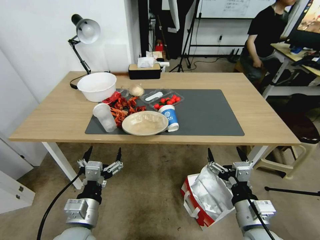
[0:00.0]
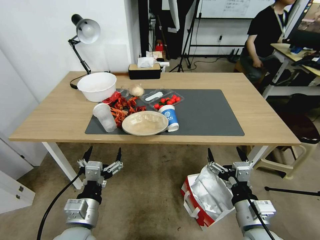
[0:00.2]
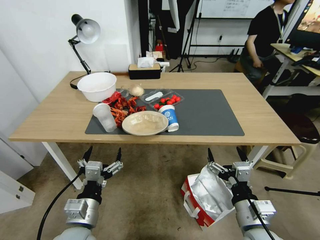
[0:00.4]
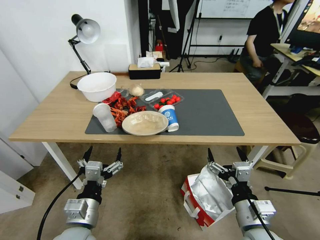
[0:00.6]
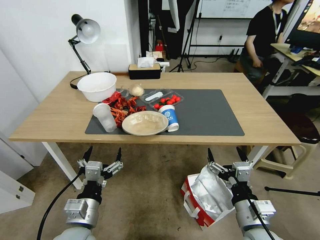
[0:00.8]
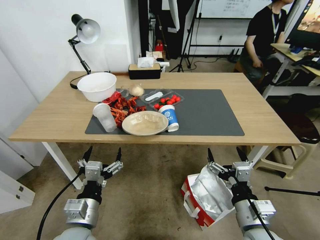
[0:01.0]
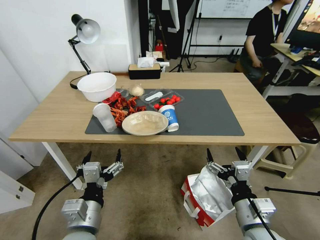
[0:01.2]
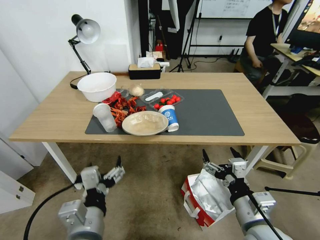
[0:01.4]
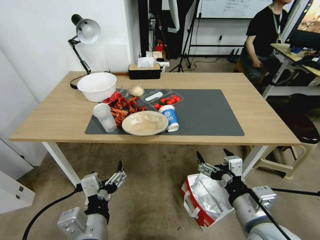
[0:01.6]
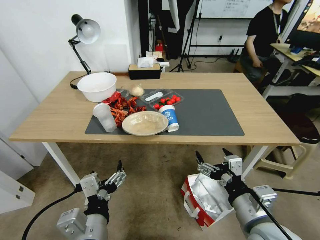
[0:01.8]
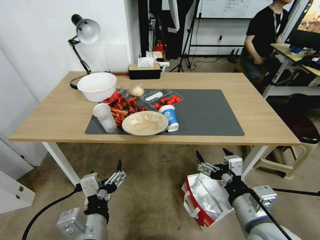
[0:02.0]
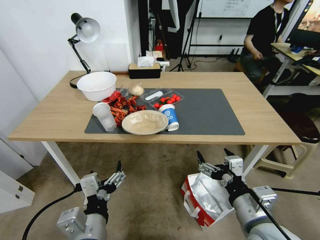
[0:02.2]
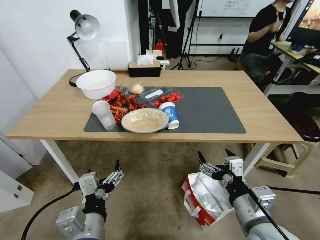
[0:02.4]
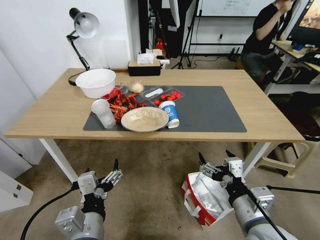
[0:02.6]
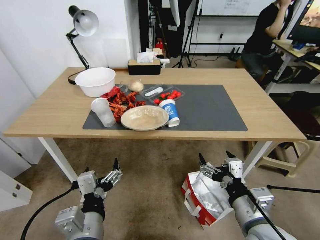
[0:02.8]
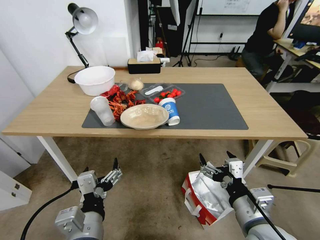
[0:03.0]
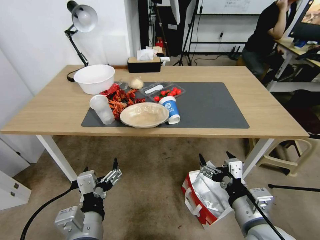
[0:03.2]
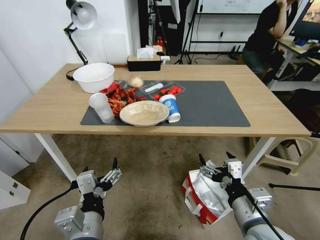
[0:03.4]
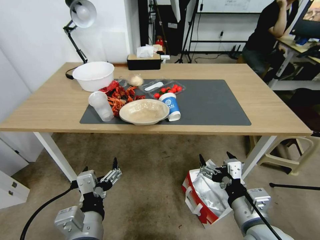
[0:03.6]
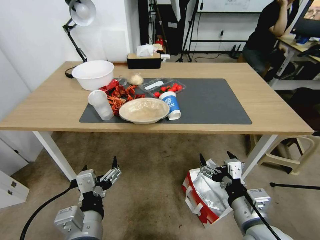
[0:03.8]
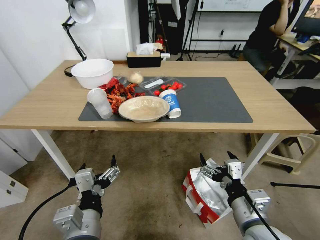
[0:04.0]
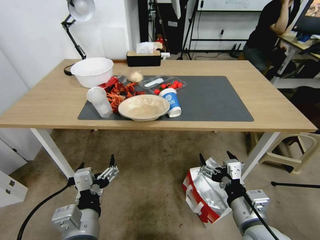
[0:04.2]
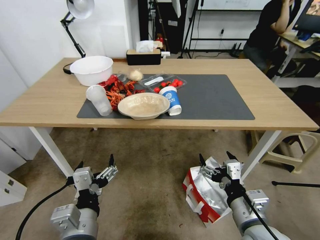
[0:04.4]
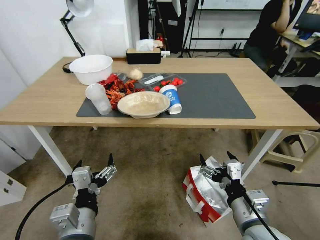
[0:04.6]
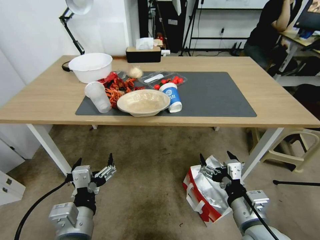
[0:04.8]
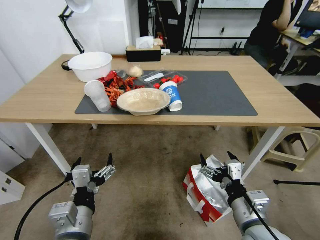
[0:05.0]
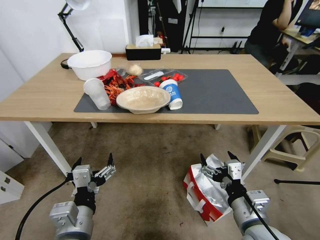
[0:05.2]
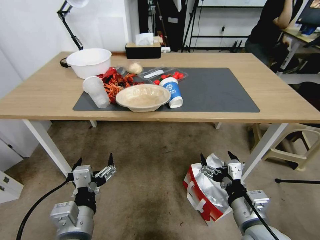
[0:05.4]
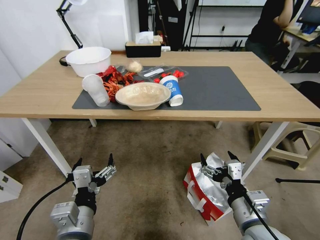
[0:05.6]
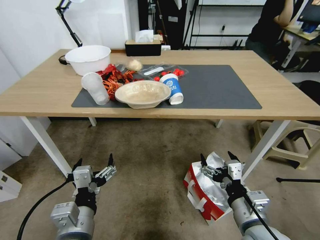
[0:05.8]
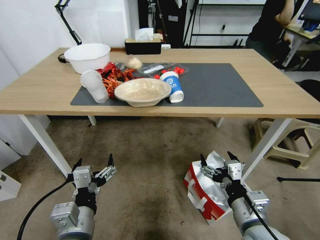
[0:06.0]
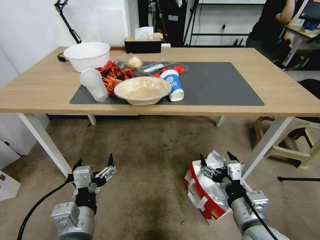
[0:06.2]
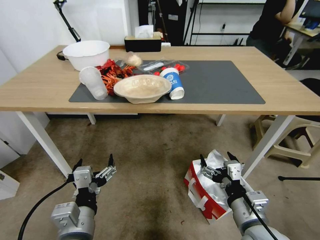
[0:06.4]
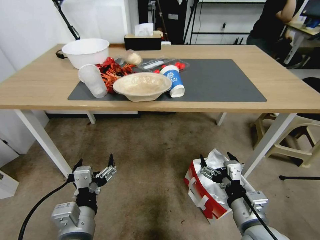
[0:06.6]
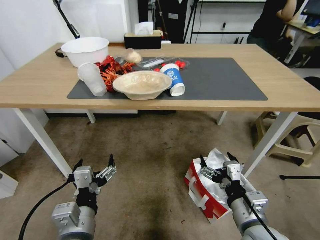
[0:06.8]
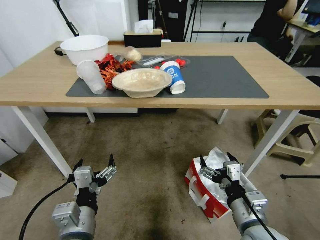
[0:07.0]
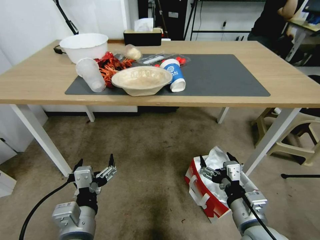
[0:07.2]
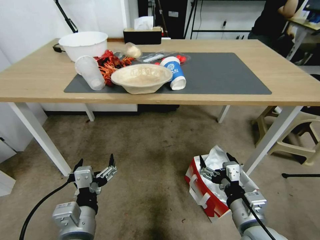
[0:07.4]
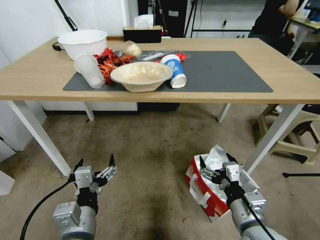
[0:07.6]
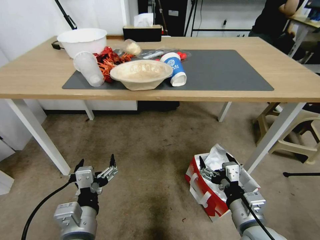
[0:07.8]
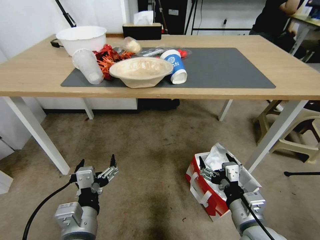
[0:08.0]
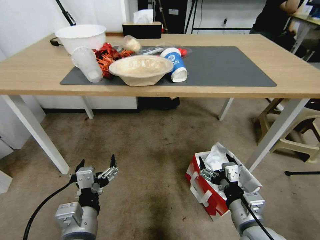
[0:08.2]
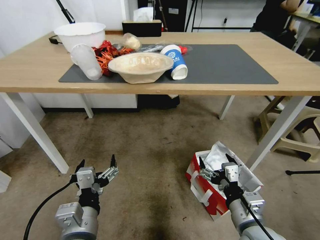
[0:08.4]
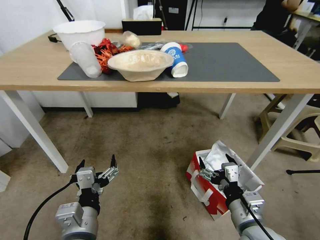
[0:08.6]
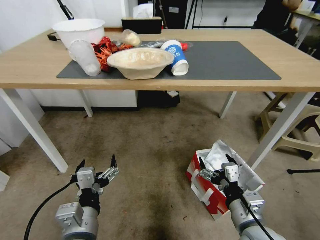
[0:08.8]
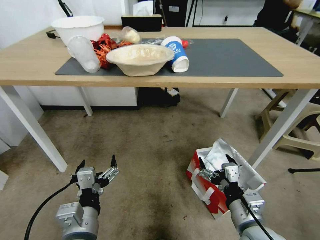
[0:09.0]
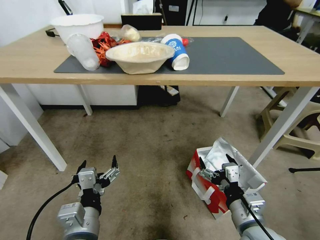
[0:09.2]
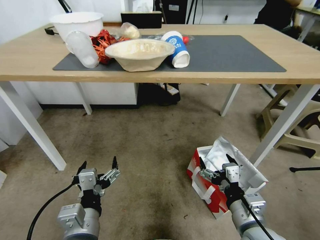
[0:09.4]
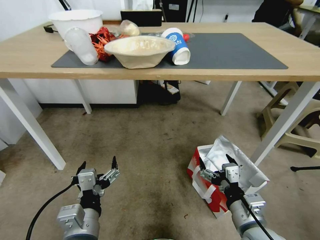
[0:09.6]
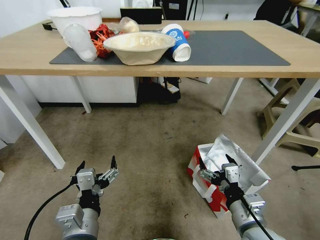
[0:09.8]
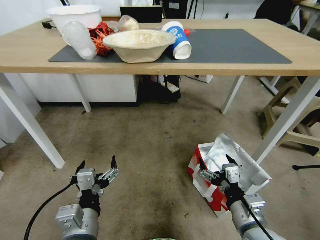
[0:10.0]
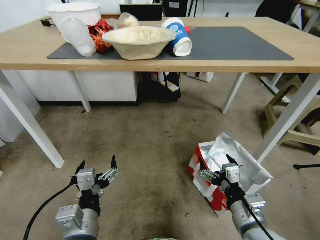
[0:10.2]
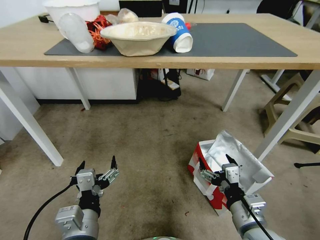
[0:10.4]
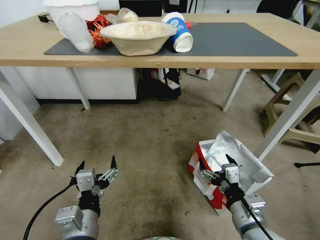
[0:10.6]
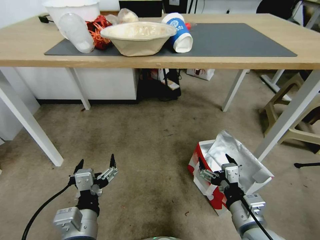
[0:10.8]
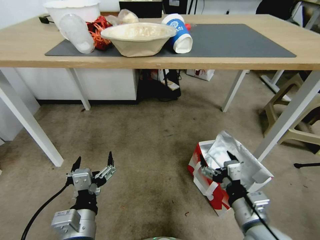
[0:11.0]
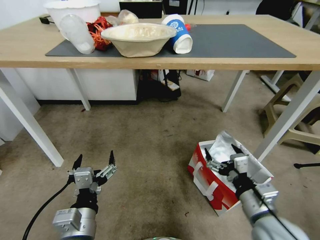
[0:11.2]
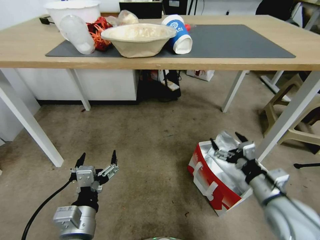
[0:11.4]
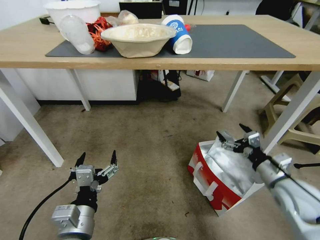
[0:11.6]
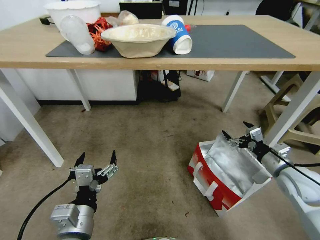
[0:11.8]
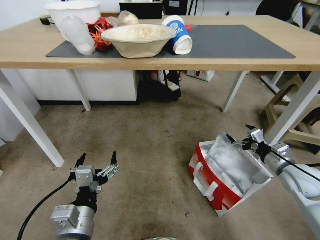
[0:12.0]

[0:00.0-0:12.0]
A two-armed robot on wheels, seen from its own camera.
Task of the whole recording: Pick up the food delivery bag from the floor and place it on the table.
0:10.4 to 0:12.0: The right gripper travels to the right and forward by approximately 25 cm.

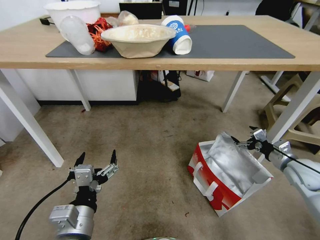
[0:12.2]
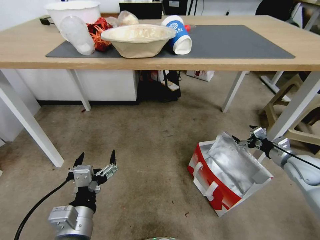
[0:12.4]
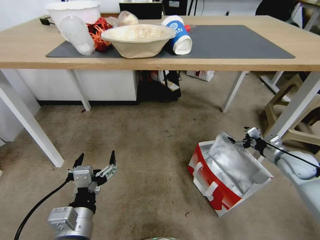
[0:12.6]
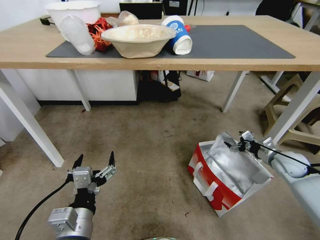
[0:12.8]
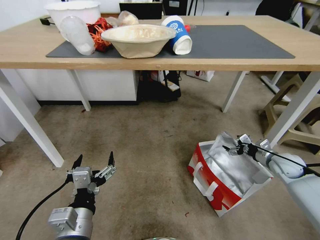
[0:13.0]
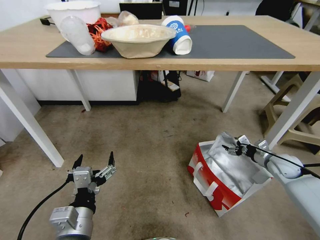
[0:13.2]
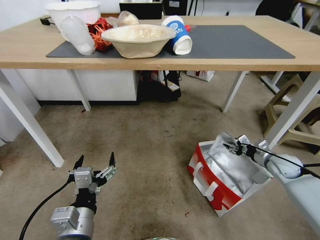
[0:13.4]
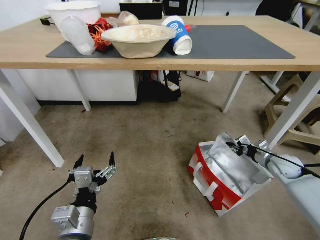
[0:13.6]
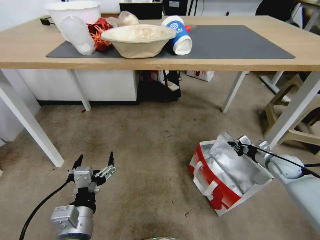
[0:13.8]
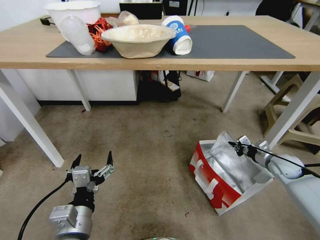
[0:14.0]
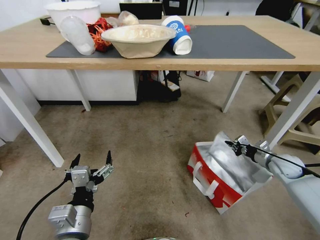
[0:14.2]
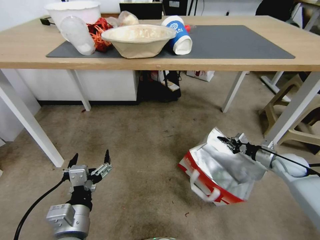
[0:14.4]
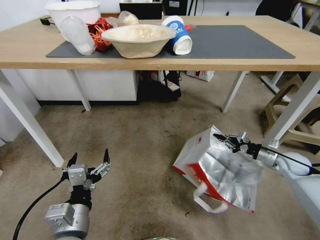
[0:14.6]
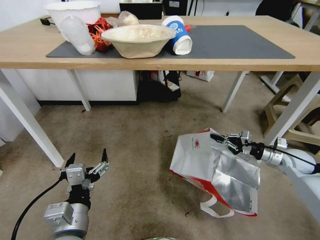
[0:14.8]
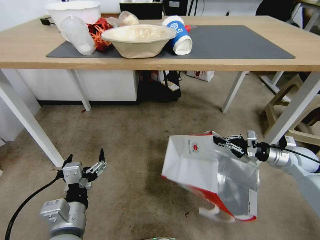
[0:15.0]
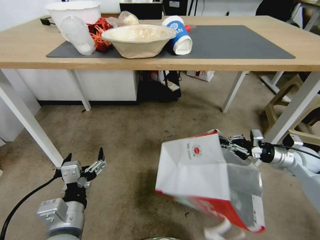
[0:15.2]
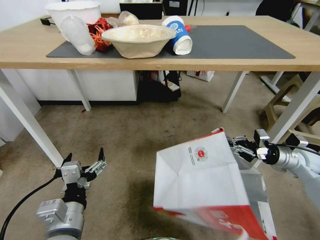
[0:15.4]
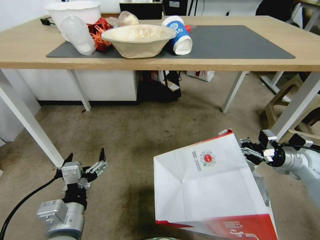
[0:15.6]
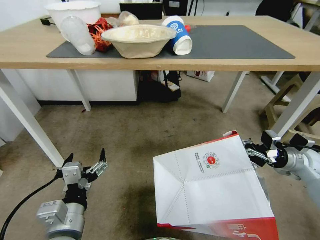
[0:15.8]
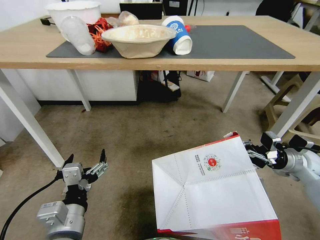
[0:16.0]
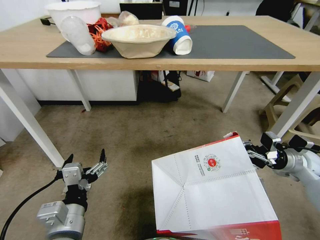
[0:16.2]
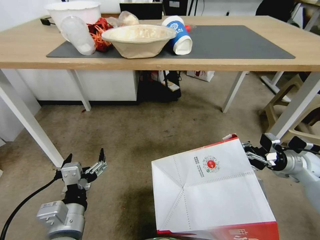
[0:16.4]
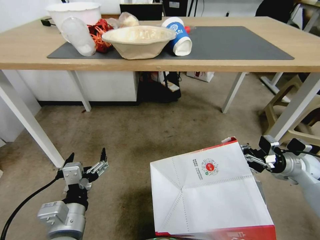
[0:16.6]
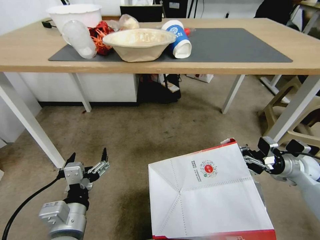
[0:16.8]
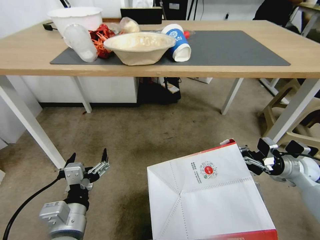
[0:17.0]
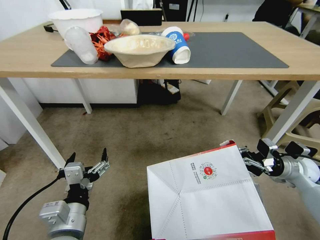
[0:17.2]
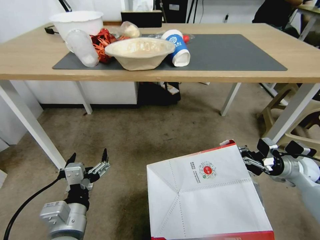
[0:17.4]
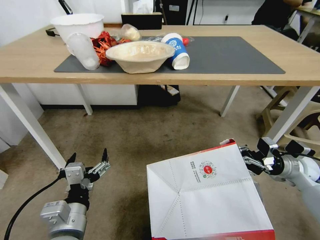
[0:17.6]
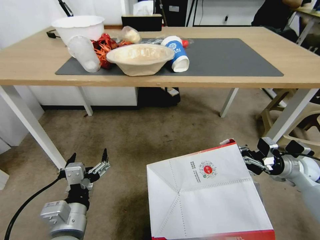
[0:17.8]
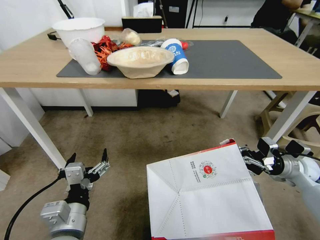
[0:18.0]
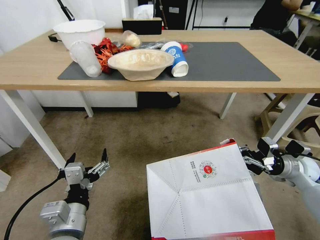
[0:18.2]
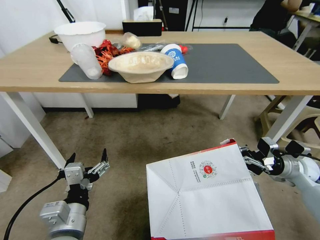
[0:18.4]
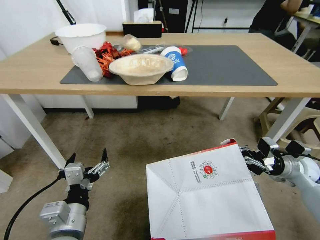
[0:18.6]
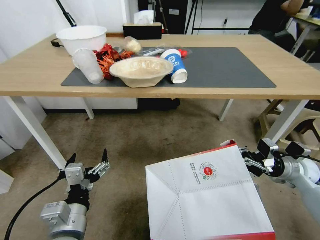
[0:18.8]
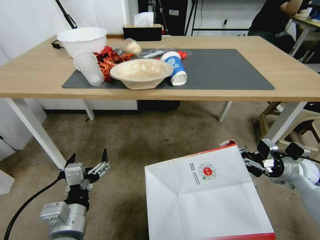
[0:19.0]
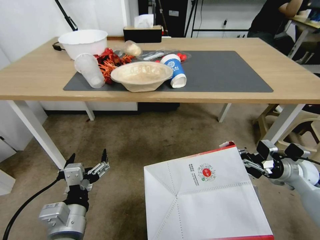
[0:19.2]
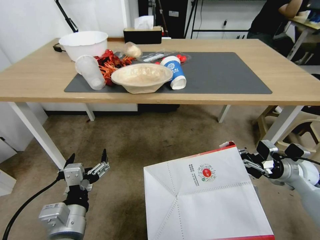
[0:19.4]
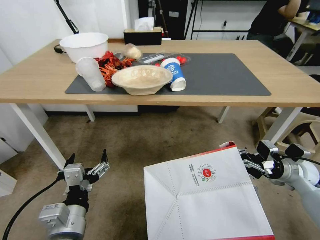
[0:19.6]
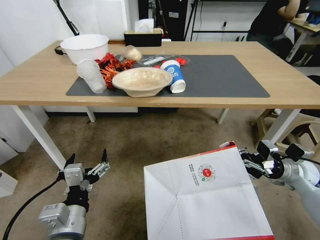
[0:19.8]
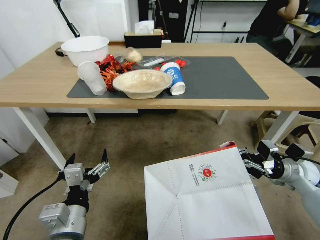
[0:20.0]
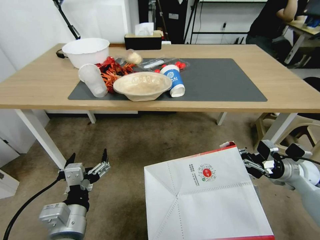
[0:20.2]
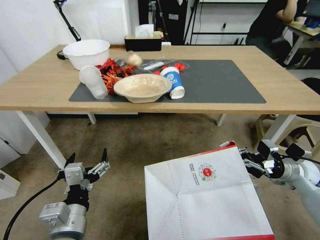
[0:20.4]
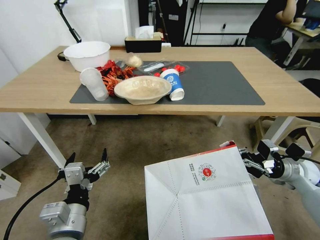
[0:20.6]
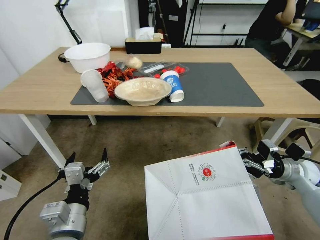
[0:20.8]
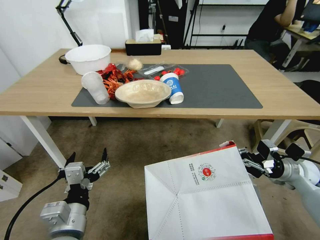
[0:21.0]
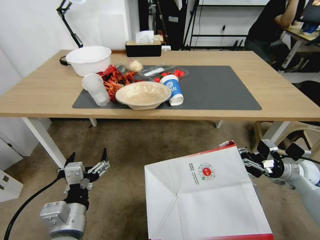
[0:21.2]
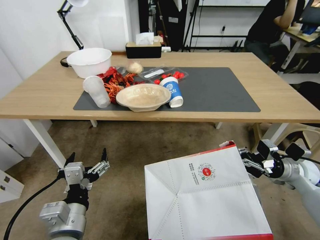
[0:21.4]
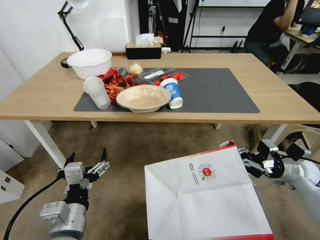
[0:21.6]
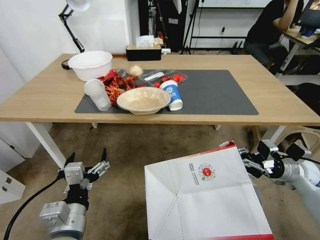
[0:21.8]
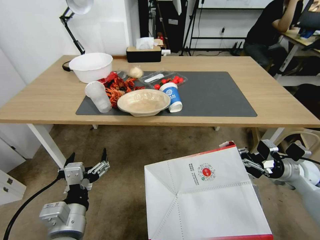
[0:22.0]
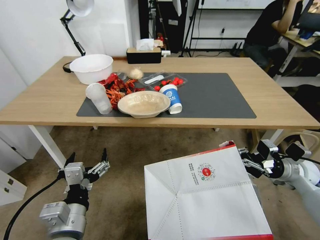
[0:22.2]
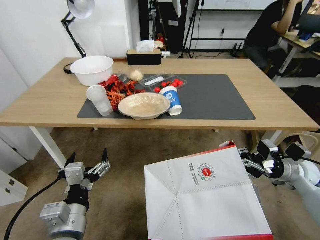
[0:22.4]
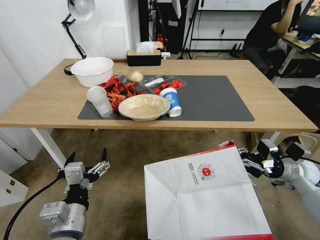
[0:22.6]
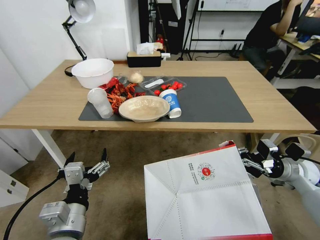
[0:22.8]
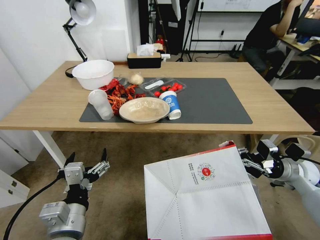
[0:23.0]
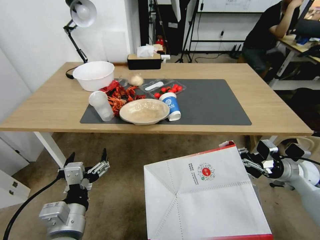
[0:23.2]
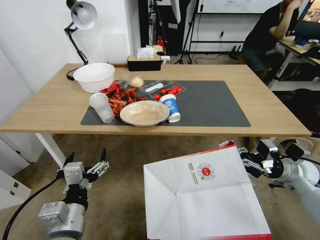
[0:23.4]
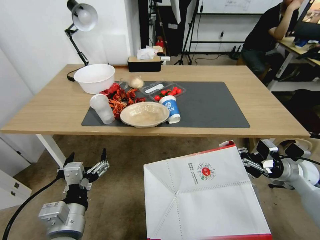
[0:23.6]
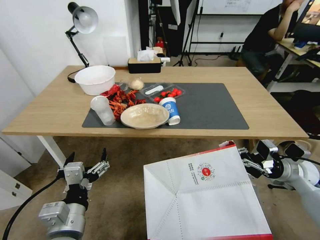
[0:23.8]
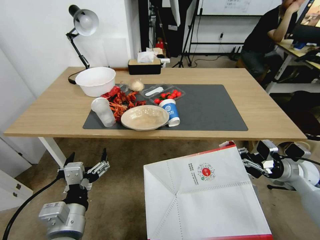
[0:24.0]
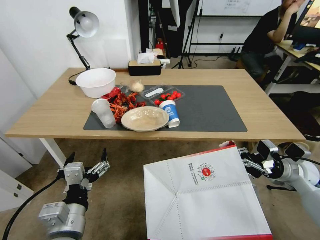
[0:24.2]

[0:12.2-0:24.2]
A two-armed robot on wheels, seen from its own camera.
Task of the whole recording: Pick up the food delivery bag from the floor and place it on the table.
0:12.2 to 0:13.8: The right gripper shifts some 10 cm downward and forward, and closes its fingers.
0:13.8 to 0:15.2: The right gripper heads upward, covering about 5 cm.
